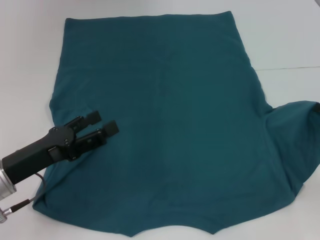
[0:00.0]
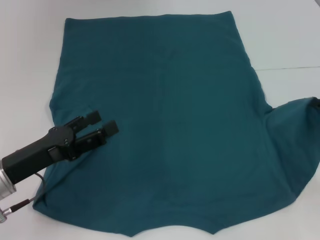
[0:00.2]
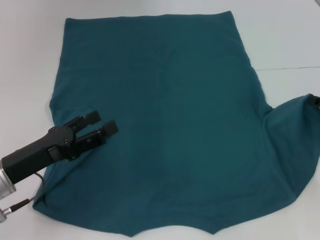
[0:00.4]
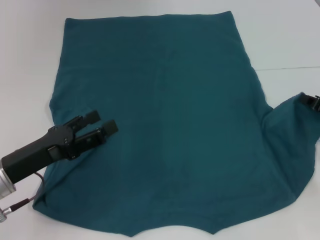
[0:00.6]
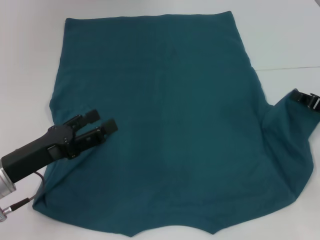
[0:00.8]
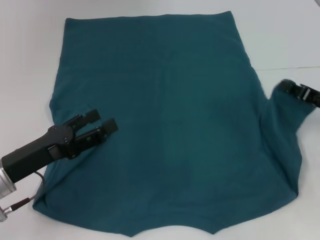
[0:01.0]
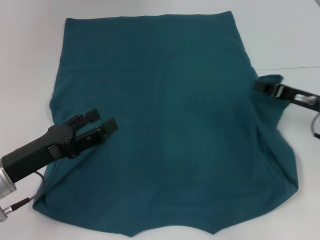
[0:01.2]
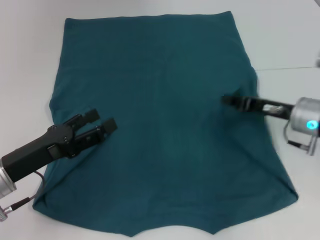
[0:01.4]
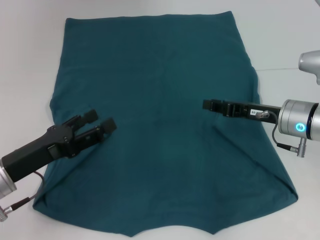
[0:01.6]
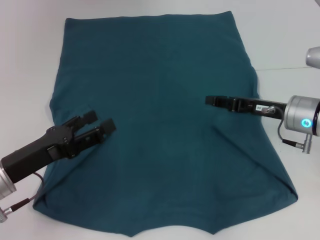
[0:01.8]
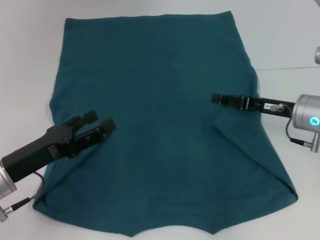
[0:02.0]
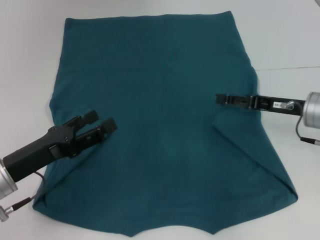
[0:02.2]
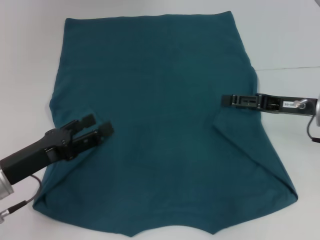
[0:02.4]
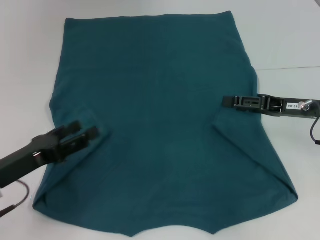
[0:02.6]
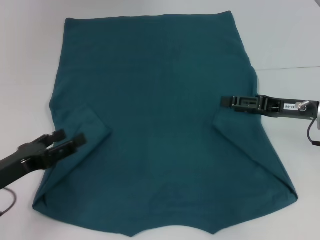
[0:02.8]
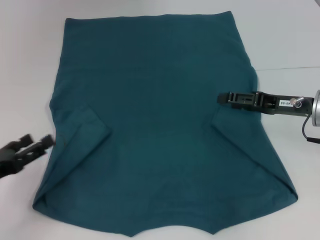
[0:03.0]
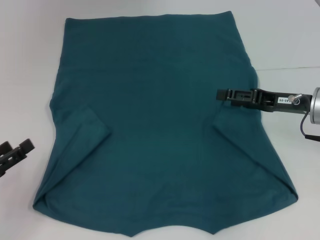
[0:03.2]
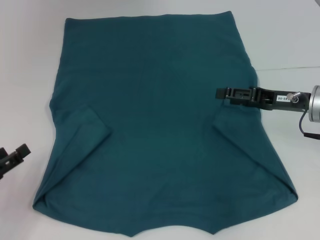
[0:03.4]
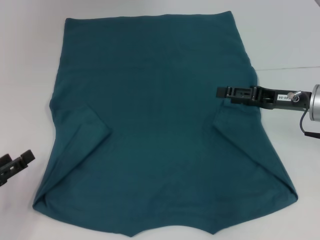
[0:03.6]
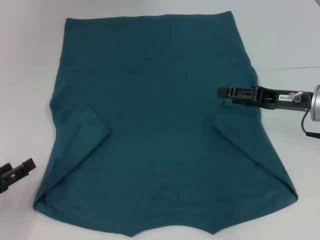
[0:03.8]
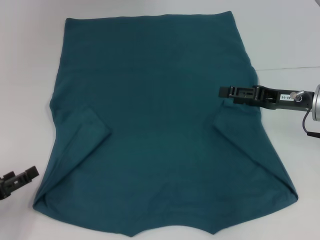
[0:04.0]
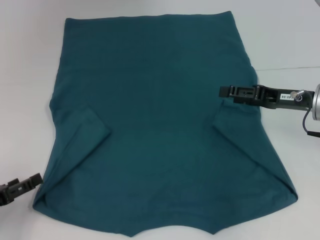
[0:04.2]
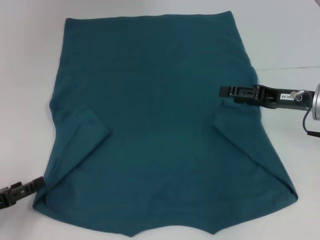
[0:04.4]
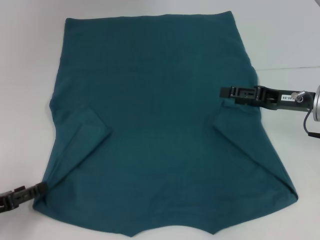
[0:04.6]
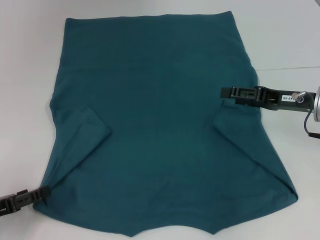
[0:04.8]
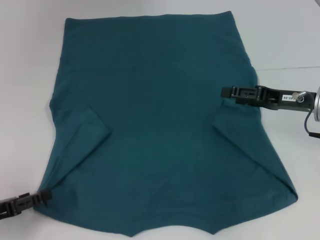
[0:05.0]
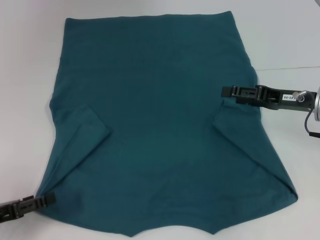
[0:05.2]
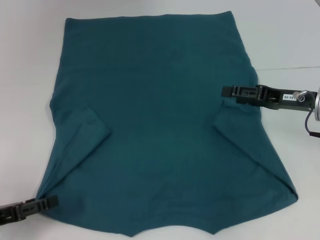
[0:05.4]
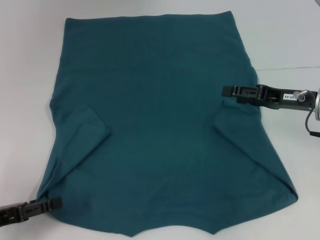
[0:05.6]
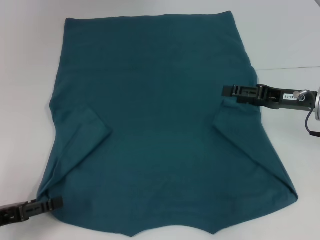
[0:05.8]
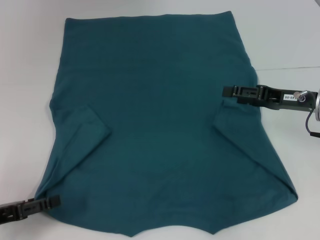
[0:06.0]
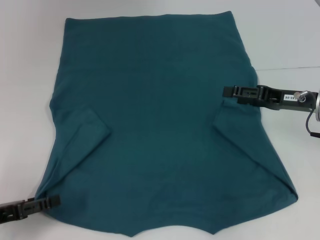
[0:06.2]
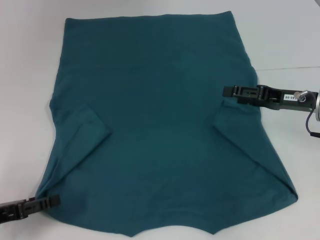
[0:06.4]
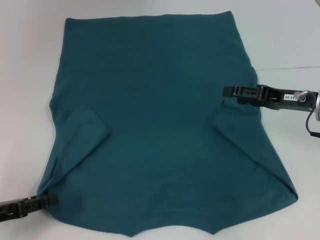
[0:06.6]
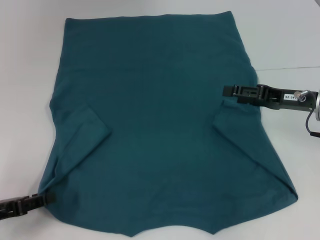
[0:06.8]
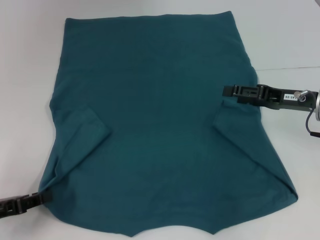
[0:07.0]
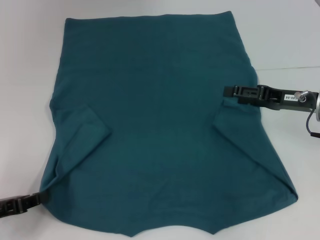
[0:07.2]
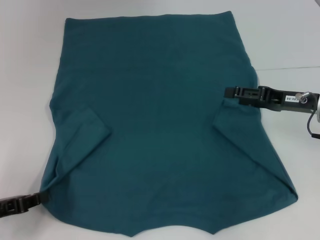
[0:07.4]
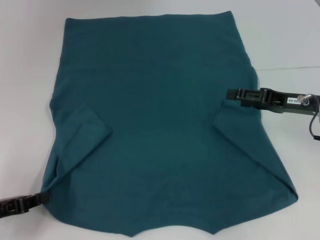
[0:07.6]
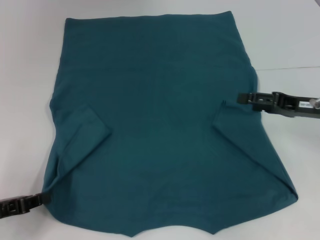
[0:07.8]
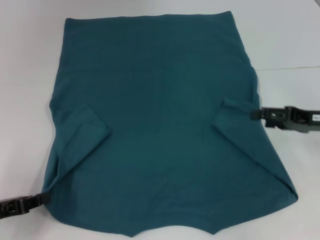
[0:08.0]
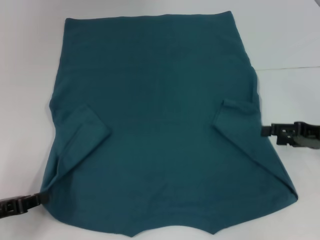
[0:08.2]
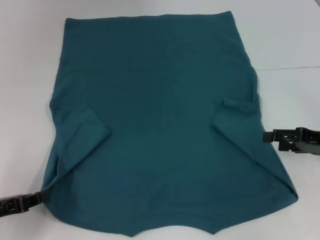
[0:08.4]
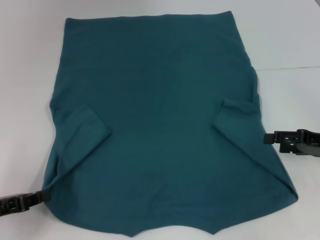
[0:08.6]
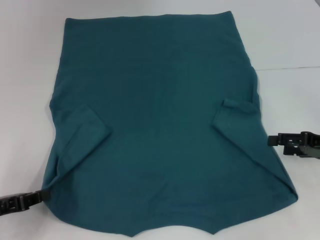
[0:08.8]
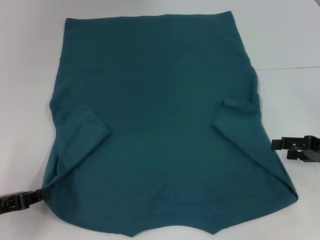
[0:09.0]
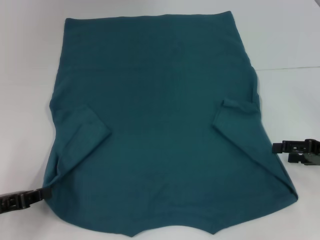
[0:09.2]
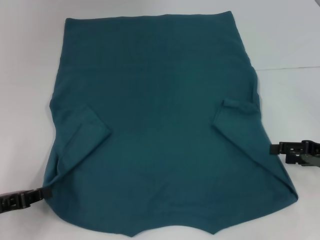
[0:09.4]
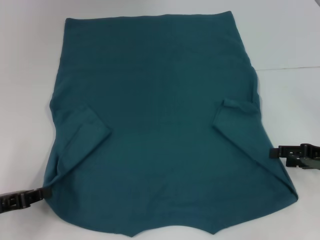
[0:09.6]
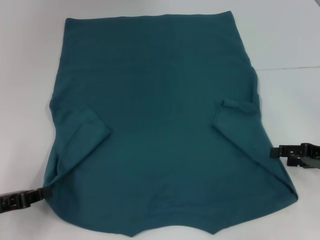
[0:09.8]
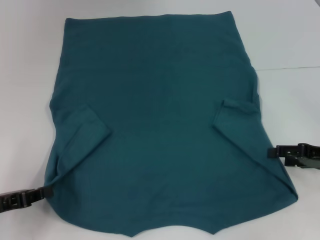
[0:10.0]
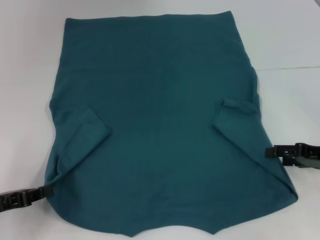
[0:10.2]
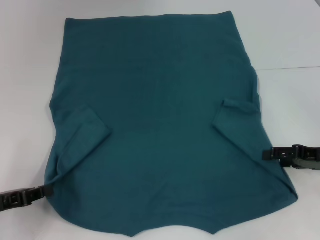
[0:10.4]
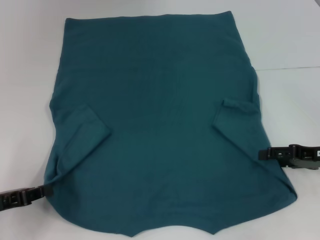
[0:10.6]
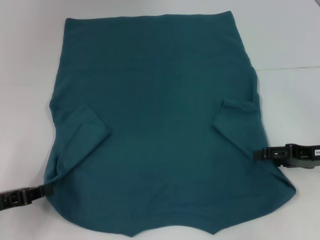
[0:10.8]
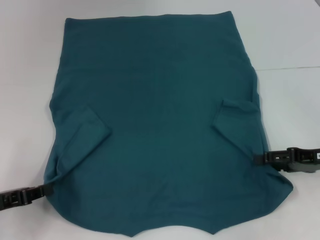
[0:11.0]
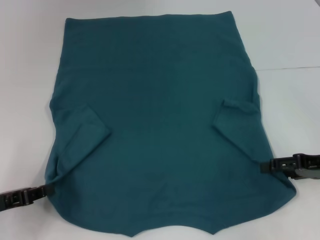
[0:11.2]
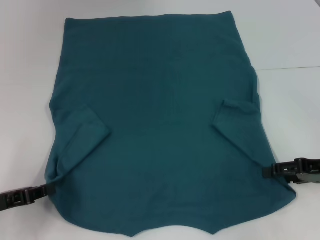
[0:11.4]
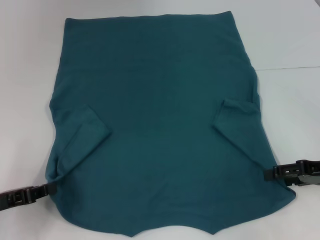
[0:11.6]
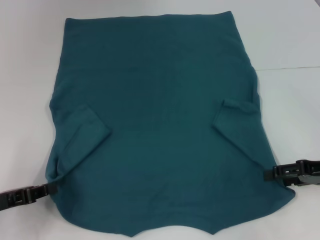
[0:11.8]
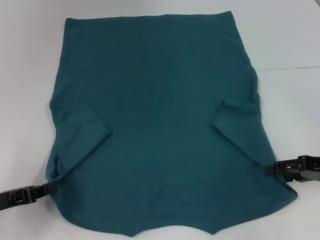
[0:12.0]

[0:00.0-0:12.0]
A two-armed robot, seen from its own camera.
Step, 0:00.0 to 0:02.0: Fold the bottom right sleeve to the right.
Step, 0:02.2 to 0:07.4: Grab the bottom left corner with your left hand.
0:00.0 to 0:01.6: The right gripper is displaced to the left by some 15 cm.
0:01.6 to 0:03.0: The right gripper opens its fingers, while the left gripper moves to the left, approximately 5 cm.
0:04.4 to 0:06.0: The grippers stay close to where they were, moving slightly.
0:06.0 to 0:07.6: The left gripper closes up.
0:07.6 to 0:09.0: The right gripper is displaced to the right and backward by approximately 10 cm.
0:09.0 to 0:12.0: The grippers make only small movements.

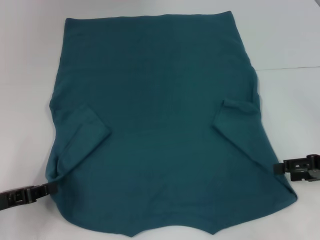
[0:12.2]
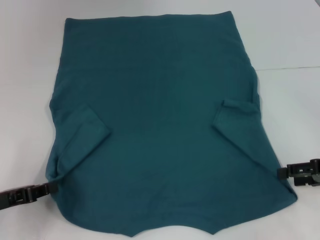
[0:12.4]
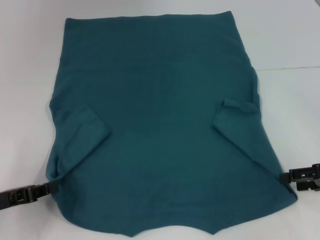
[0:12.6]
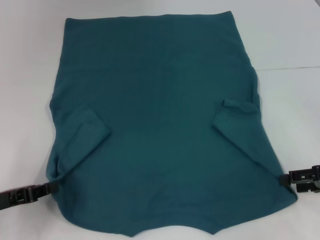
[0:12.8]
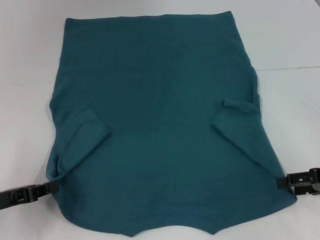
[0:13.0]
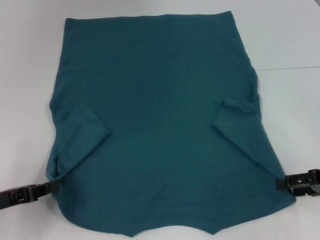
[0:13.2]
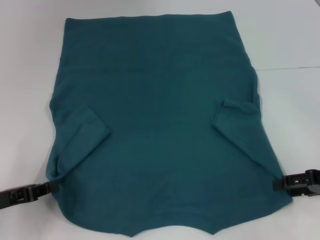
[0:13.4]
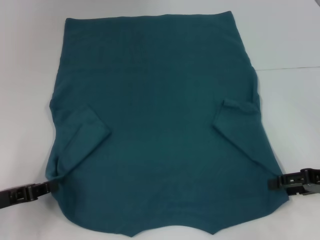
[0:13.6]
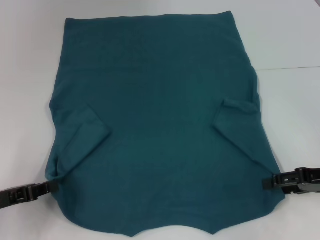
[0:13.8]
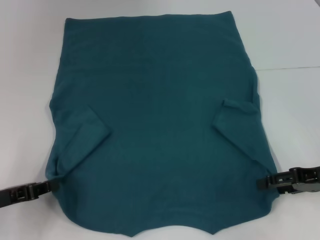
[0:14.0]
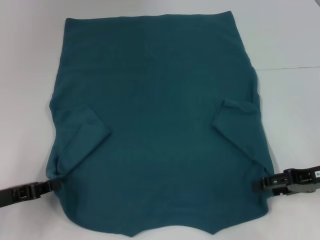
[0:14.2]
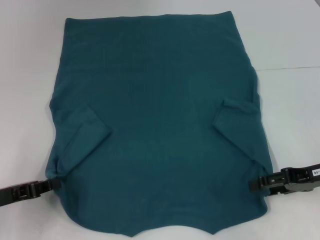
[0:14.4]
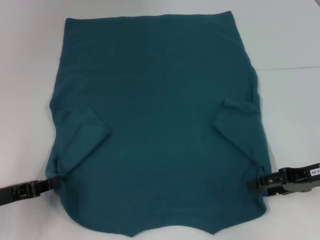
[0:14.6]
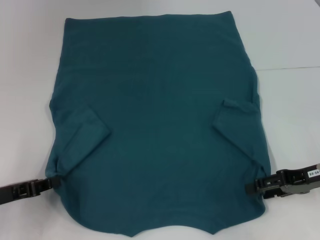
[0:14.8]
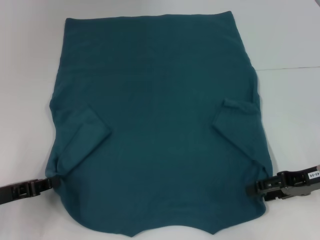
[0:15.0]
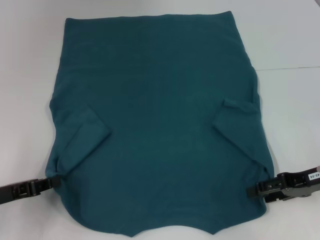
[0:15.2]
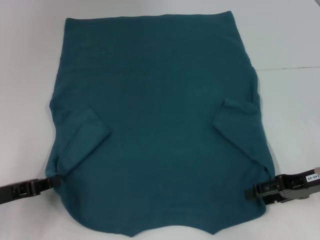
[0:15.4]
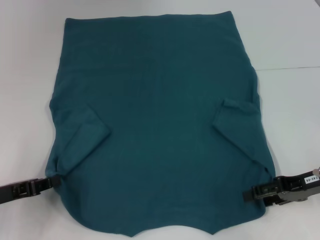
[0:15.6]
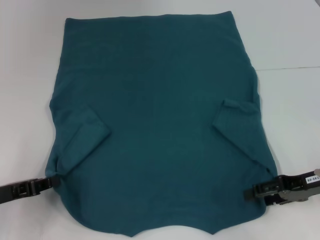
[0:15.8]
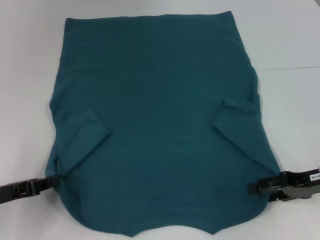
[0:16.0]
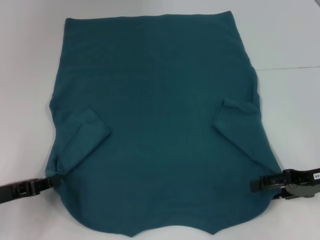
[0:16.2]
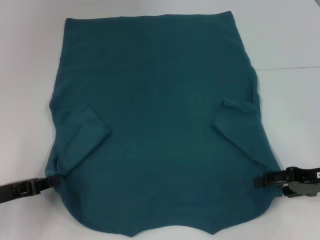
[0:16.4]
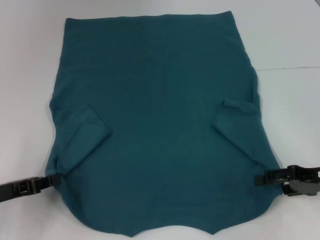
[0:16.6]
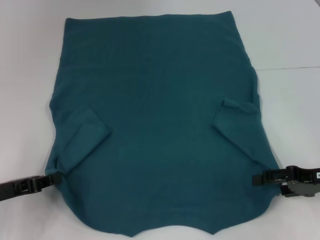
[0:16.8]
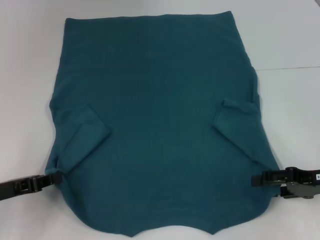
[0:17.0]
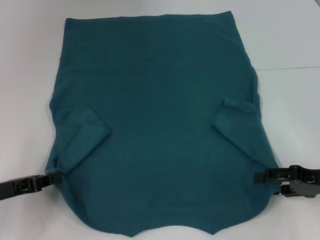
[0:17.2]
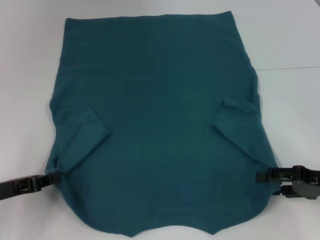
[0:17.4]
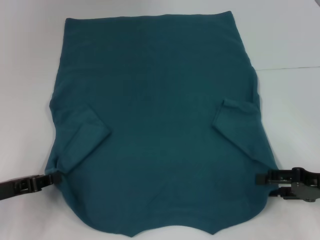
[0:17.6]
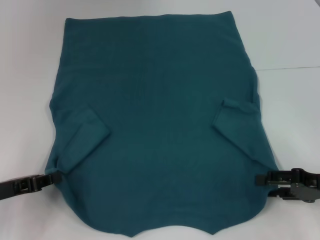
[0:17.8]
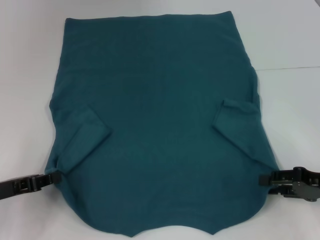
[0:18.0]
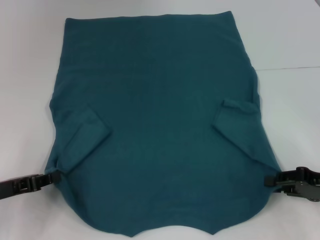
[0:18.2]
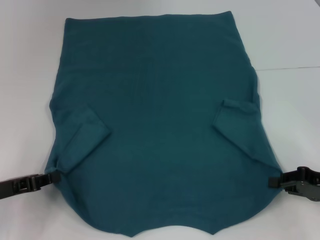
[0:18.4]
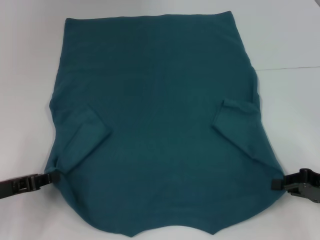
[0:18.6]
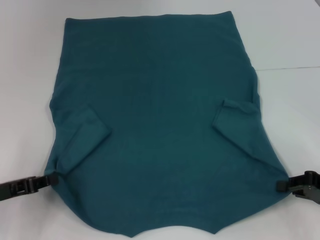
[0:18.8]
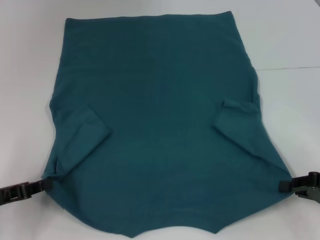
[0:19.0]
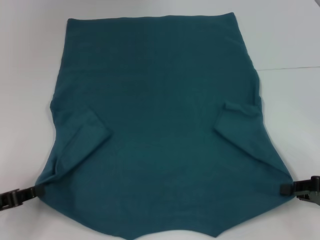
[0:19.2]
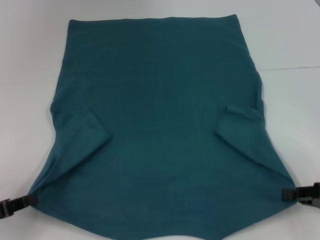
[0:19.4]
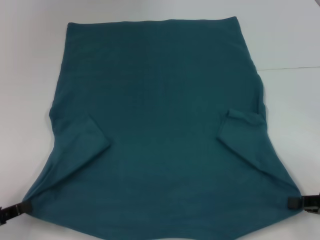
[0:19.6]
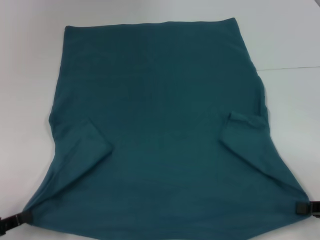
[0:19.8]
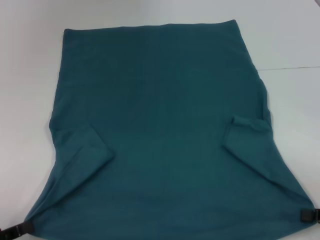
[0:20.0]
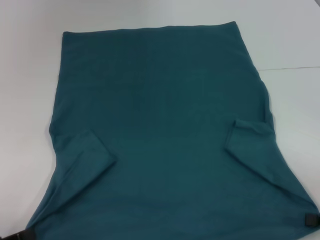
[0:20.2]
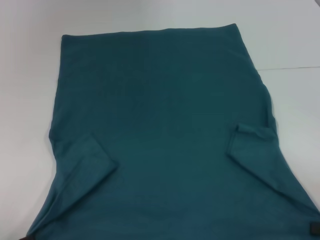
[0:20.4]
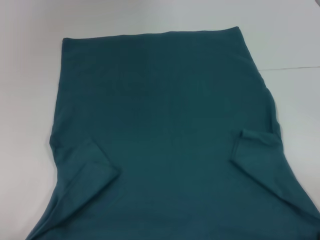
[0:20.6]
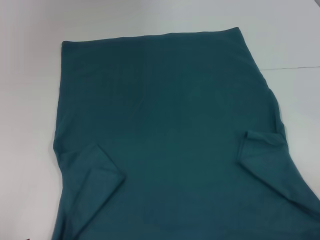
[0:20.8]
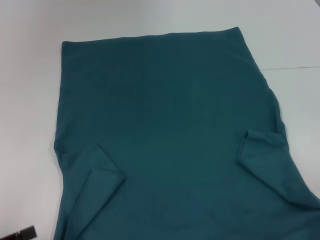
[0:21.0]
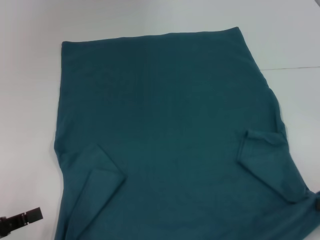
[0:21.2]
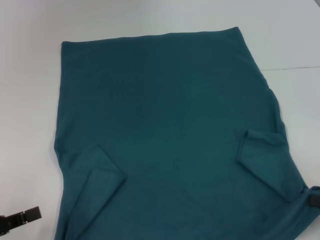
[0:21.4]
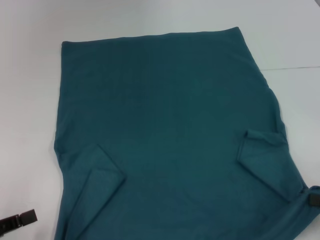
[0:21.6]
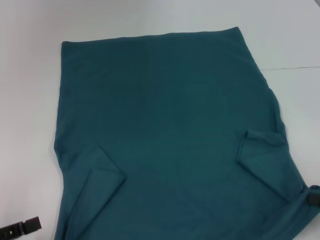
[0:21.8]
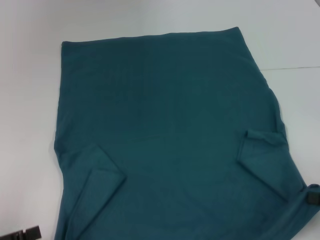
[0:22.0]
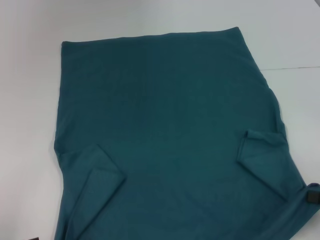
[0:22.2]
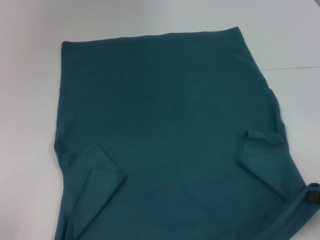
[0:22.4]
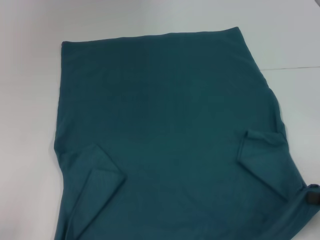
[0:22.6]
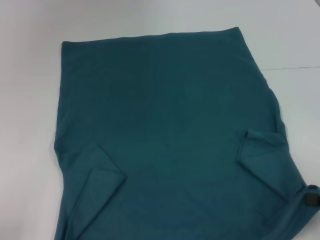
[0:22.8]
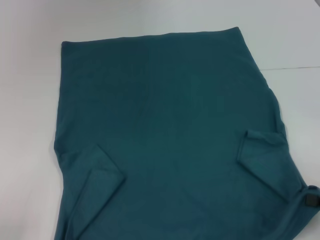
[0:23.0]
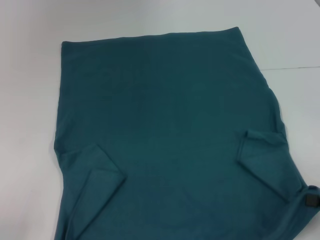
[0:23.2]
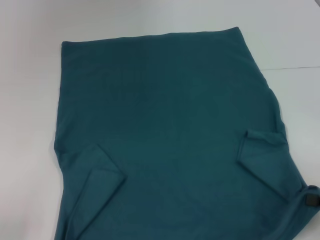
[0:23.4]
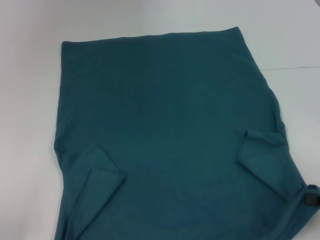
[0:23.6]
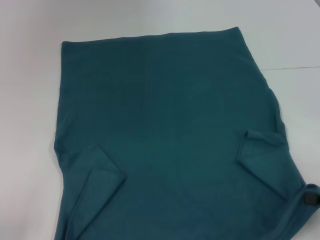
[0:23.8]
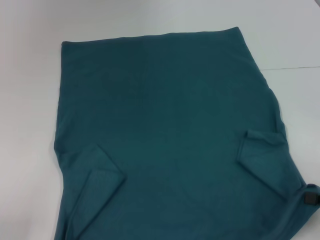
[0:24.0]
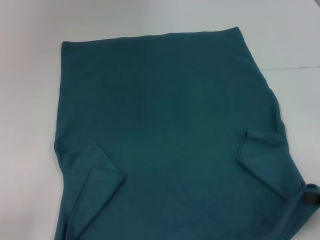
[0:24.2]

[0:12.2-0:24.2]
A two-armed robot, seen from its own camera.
Step, 0:12.2 to 0:18.4: Grab the bottom right corner with your right hand.
0:12.2 to 0:18.2: The grippers make only small movements.
0:18.2 to 0:19.8: Both grippers travel together backward, roughly 5 cm. The right gripper closes.
0:19.8 to 0:21.2: The grippers stay close to where they were, moving slightly.
0:21.2 to 0:22.6: The left gripper opens.
